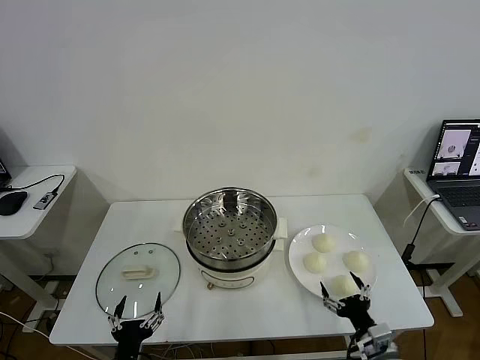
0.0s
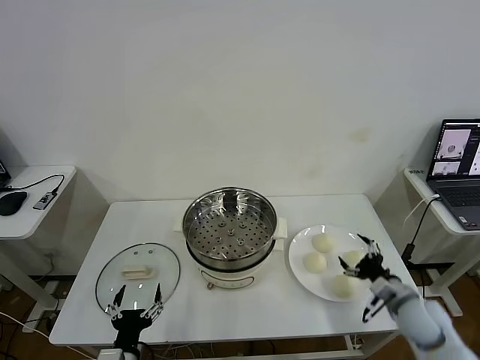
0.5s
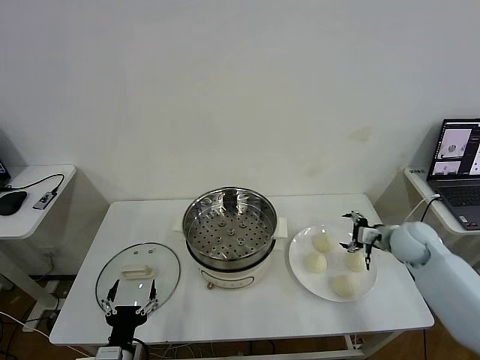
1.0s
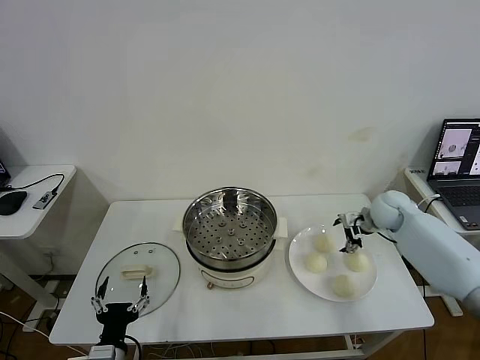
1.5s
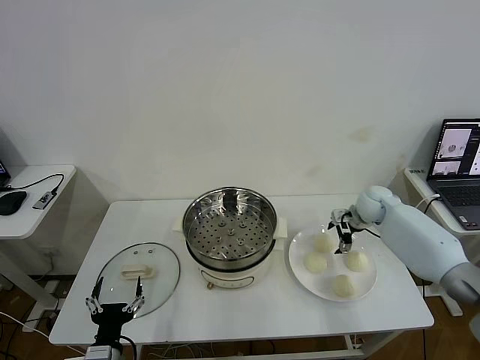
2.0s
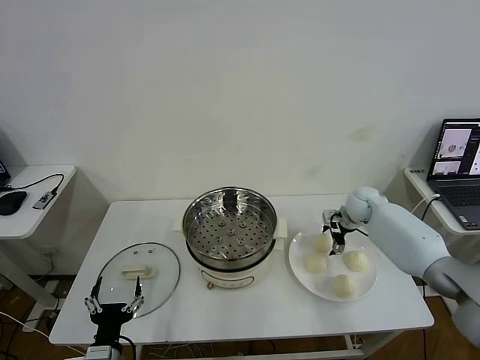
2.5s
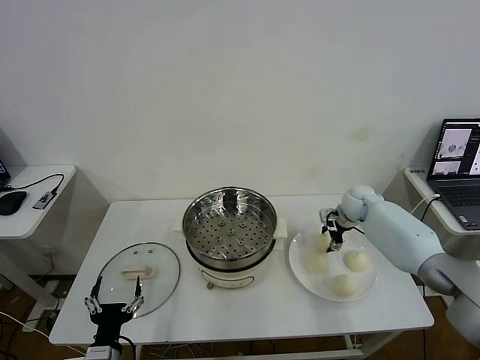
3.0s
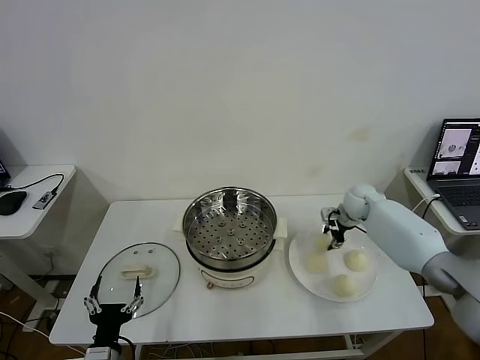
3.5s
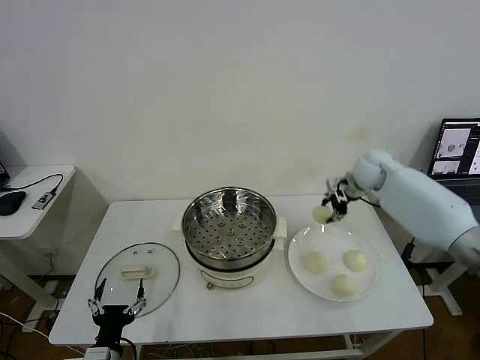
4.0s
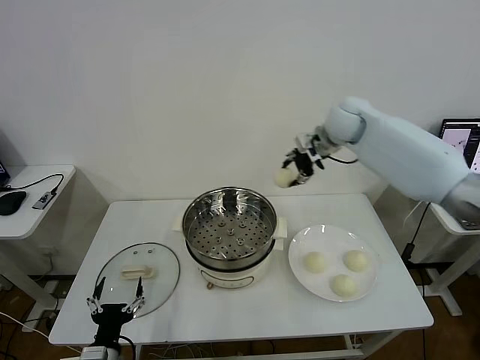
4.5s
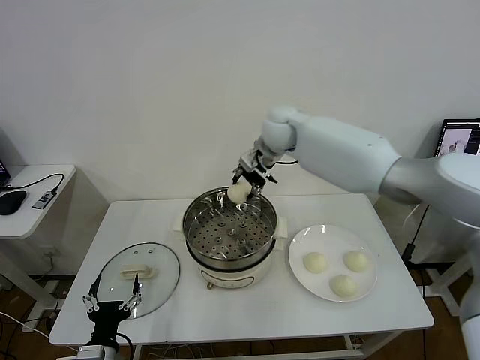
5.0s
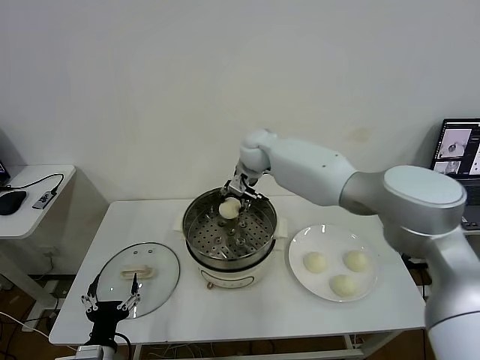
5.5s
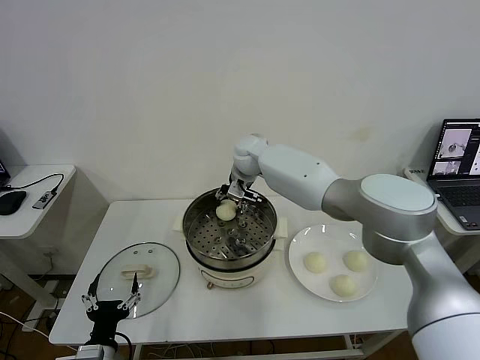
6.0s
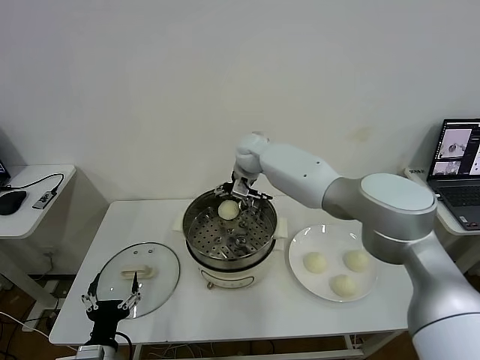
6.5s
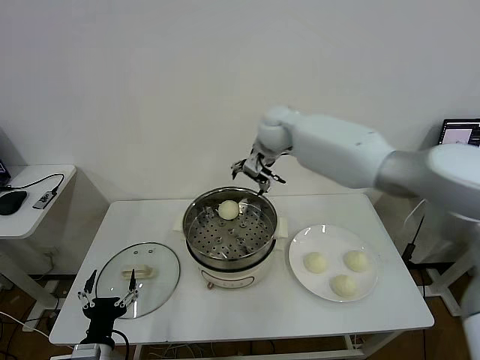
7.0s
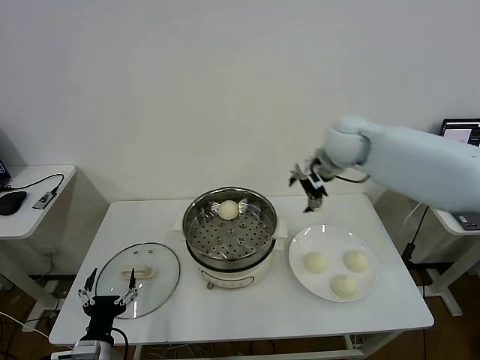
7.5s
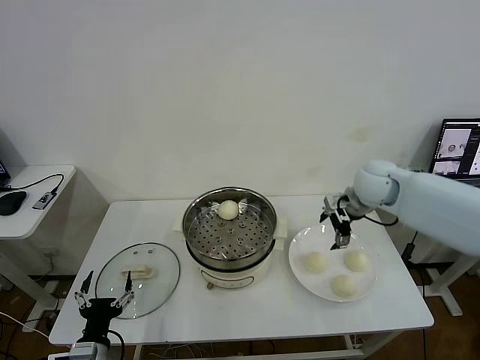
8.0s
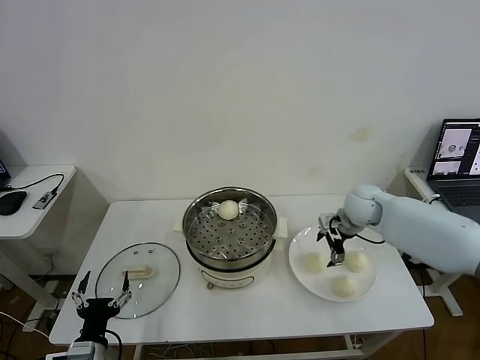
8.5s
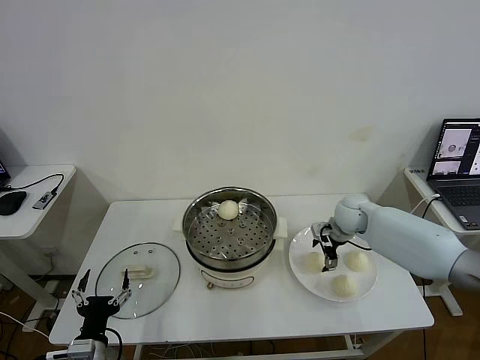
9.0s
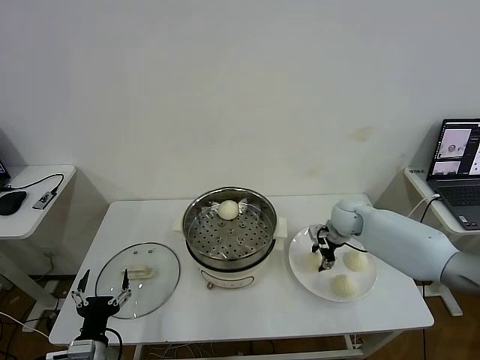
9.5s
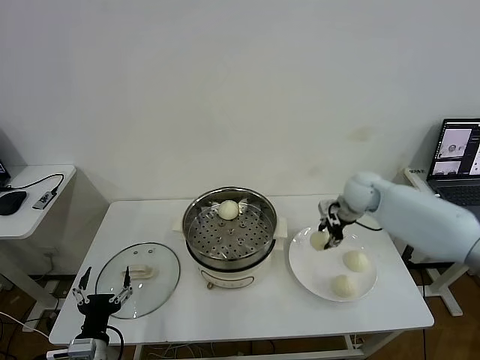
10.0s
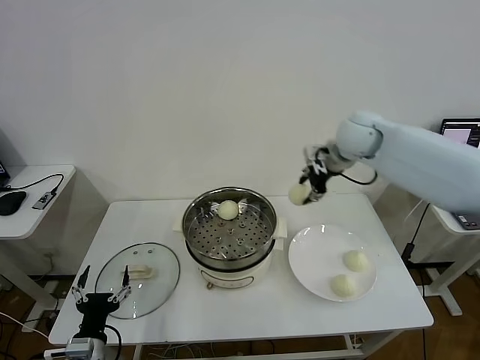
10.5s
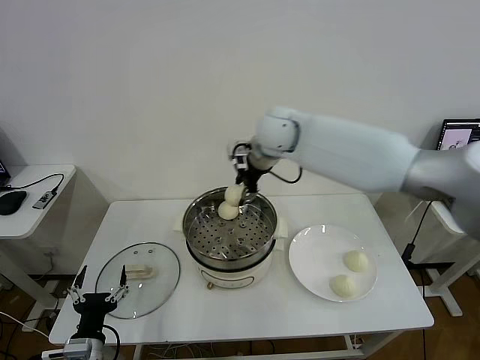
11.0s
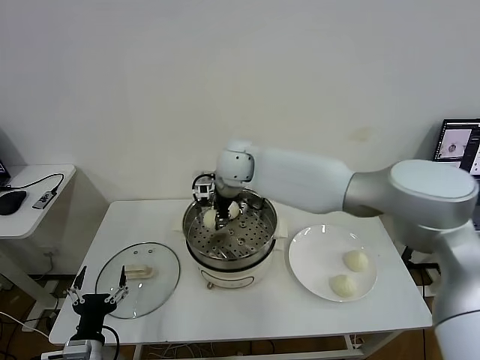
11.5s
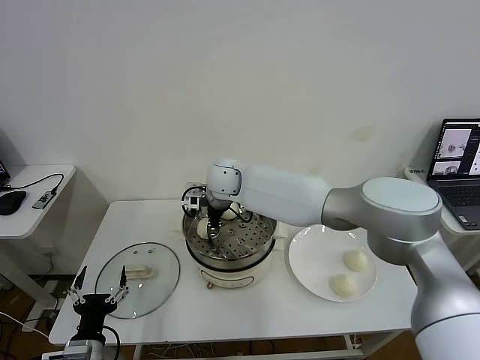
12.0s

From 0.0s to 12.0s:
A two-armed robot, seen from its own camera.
Task of the whole recording: take steamed baozi put them in steamer then cover it.
Step, from 0.0s to 3.0s: Grasp the baozi in the plate with right gripper.
Step, from 3.5s to 6.0s: Place the baozi on the steamer with right gripper.
Step, from 6.5s to 9.5s: Grasp the baozi in the plate with right gripper.
From 2.0s to 4.0s: The right gripper travels upward by roughly 15 cm, and closes.
From 4.0s to 6.0s: The right gripper moves to the left, about 30 cm.
From 6.0s to 8.0s: The right gripper is displaced to the right and backward by about 30 cm, and opens.
From 8.0s to 10.0s: The right gripper reaches some 10 cm downward, then returns, and closes.
From 10.0s to 12.0s: The right gripper goes approximately 35 cm to the left.

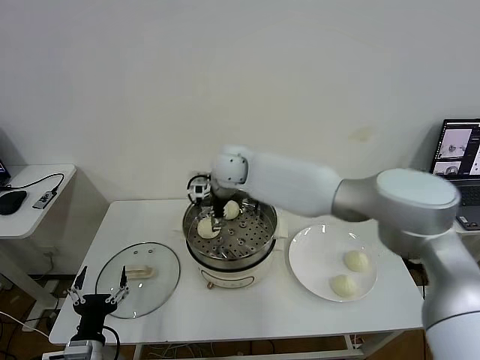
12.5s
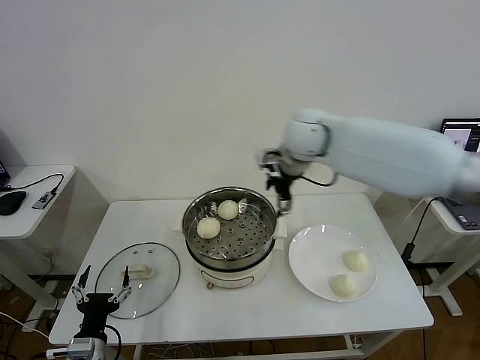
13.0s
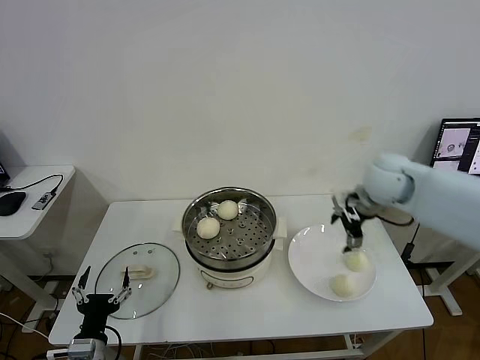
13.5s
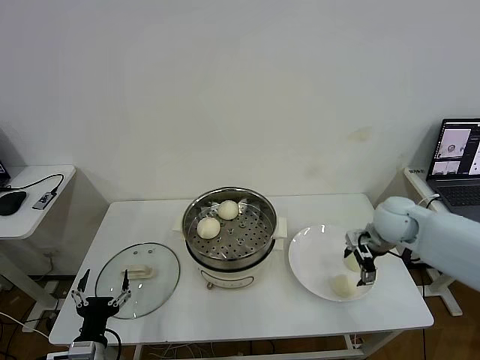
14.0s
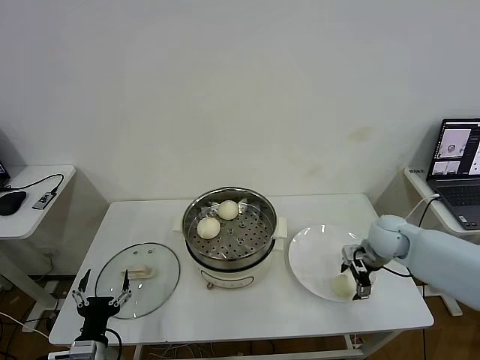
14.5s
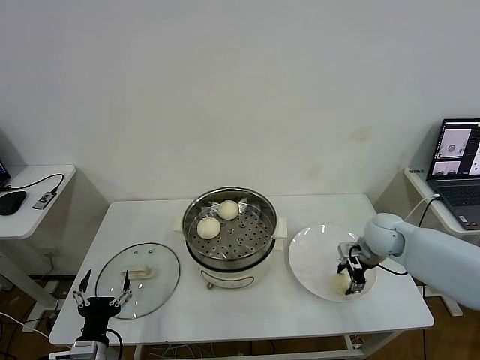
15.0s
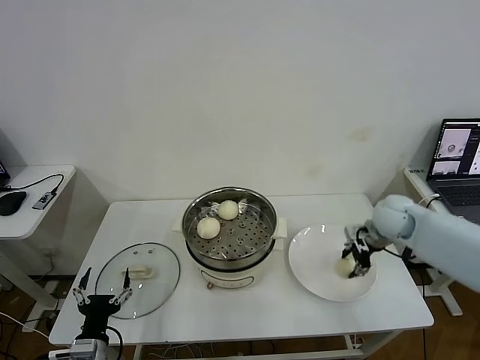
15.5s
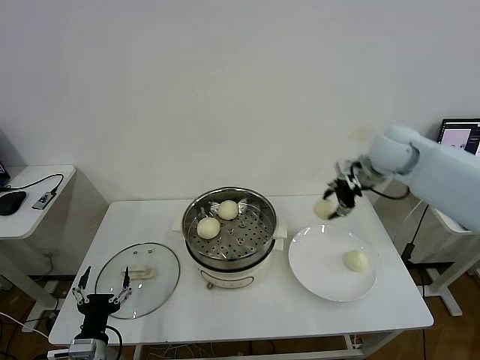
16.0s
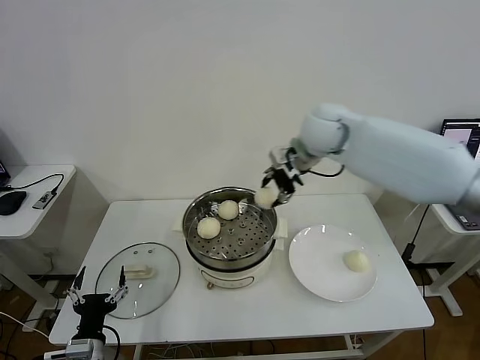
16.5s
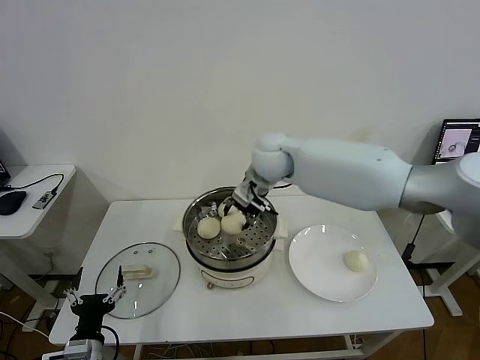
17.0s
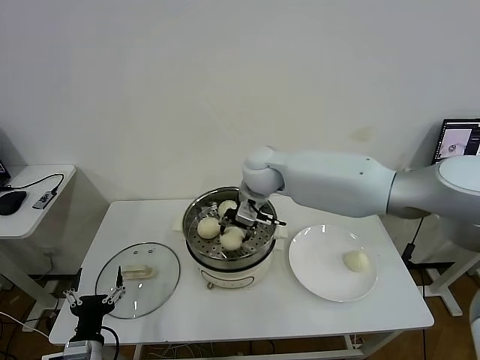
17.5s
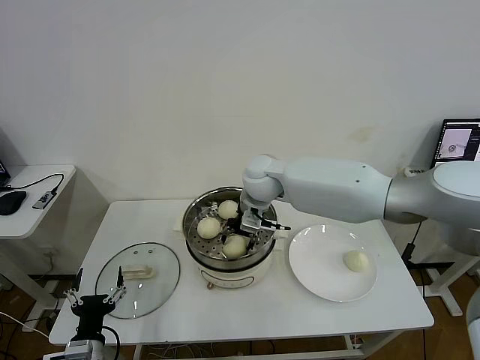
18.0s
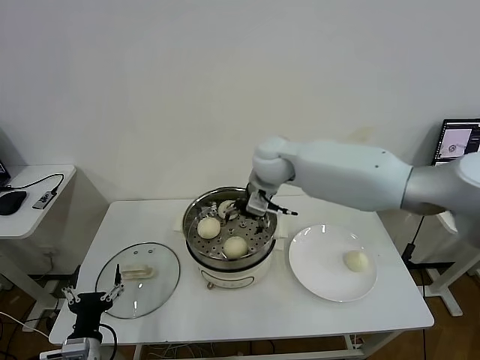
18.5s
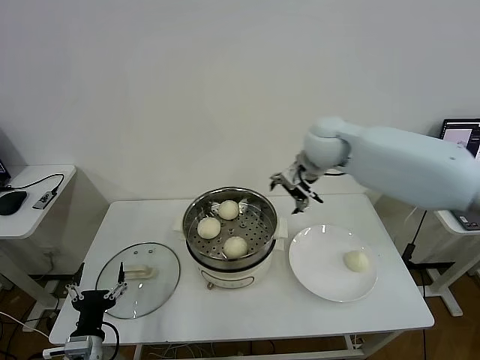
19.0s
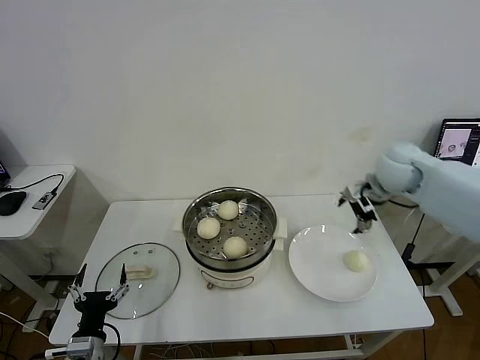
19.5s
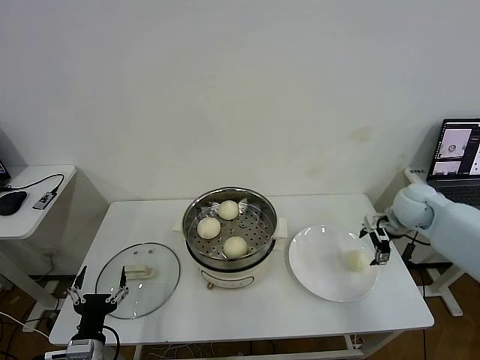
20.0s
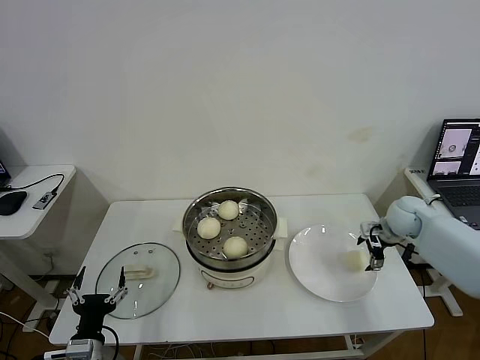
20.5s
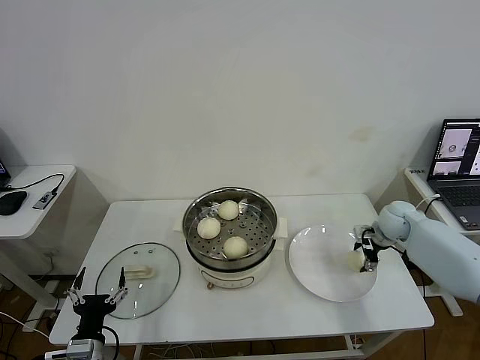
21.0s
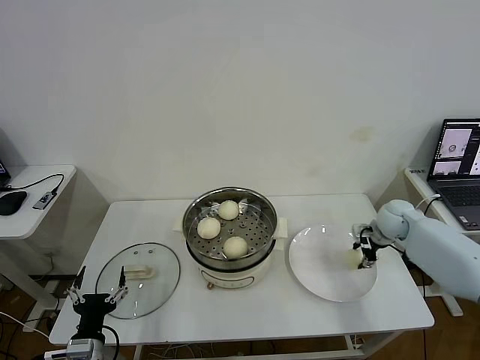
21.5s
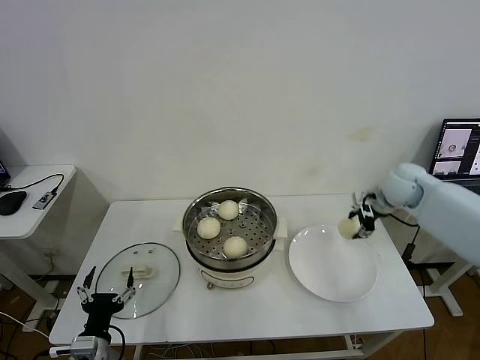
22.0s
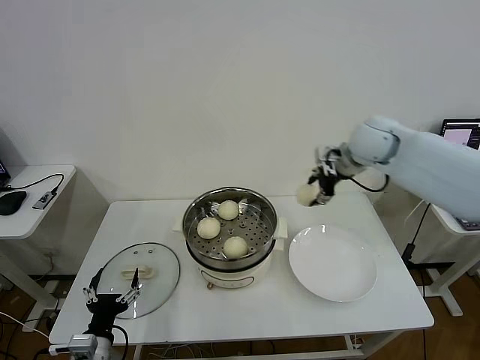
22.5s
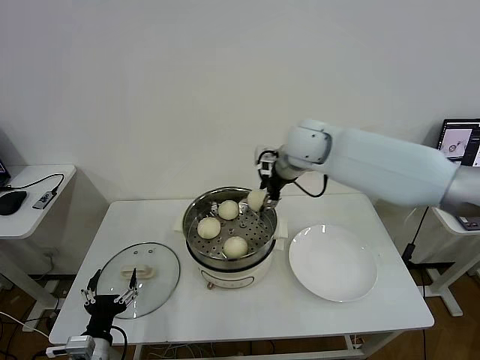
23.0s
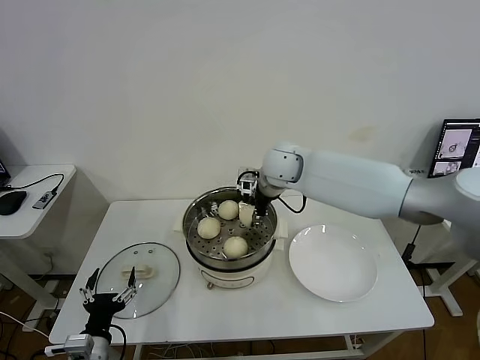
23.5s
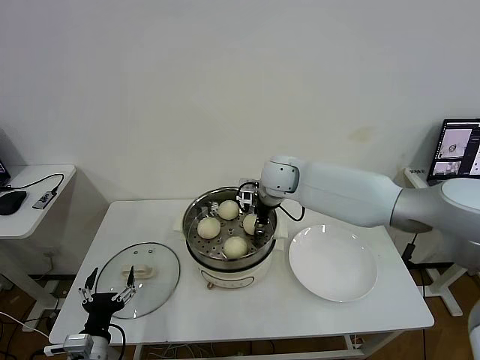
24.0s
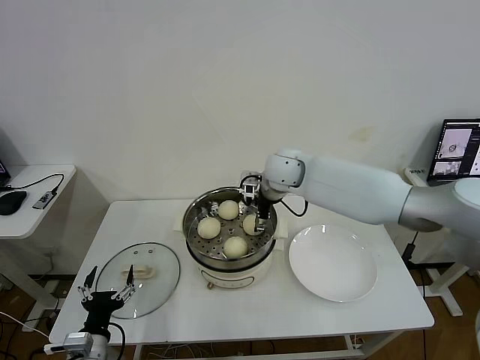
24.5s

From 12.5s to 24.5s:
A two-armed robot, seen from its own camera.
Task of the whole recording: take steamed baozi put them in steamer then cover it.
Step, from 13.0s to 15.0s: Grasp the baozi in the plate with right gripper.
Step, from 15.5s to 18.0s: Place the baozi on the steamer with right gripper.
Step, from 19.0s to 21.5s: Grasp the baozi in the plate with right gripper.
From 12.5s to 14.5s: The right gripper heads to the right and downward, covering roughly 40 cm.
From 14.5s to 16.5s: The right gripper travels upward and to the left by approximately 30 cm, and closes up.
From 16.5s to 18.5s: The right gripper moves to the left and downward, roughly 10 cm, and opens its fingers.
From 18.5s to 20.5s: The right gripper heads to the right and downward, covering some 35 cm.
From 20.5s to 22.5s: The right gripper shifts roughly 25 cm upward and to the left, and closes up.
From 22.5s to 24.5s: The right gripper shifts roughly 20 cm to the left and downward, and opens.

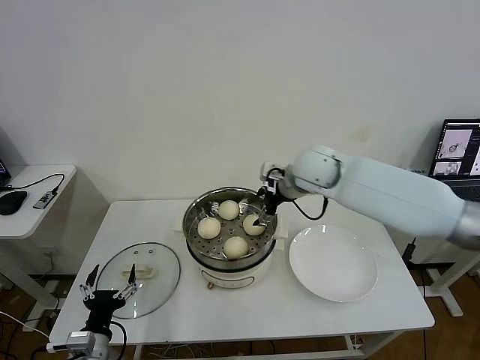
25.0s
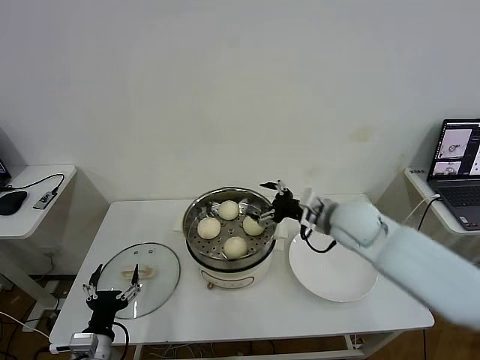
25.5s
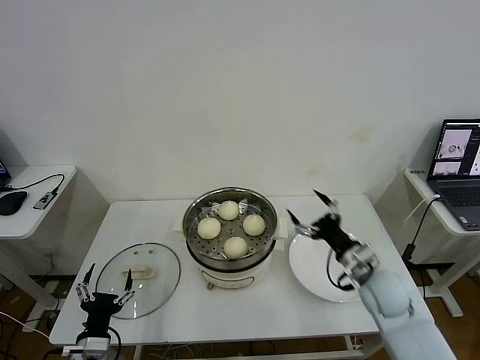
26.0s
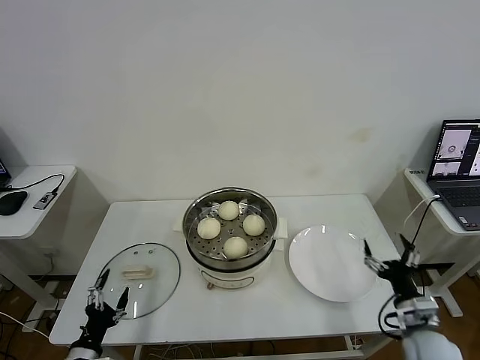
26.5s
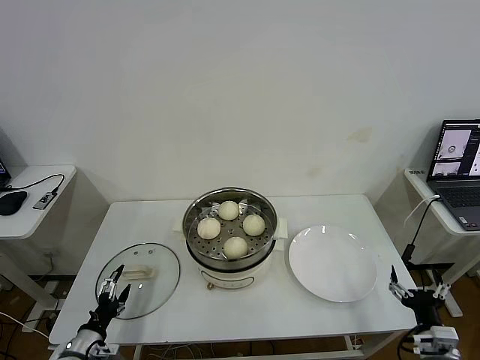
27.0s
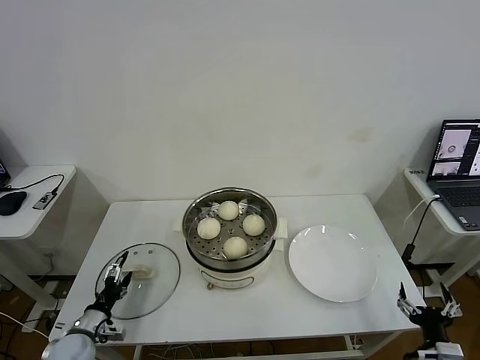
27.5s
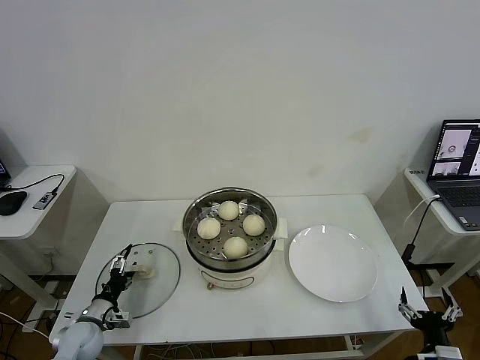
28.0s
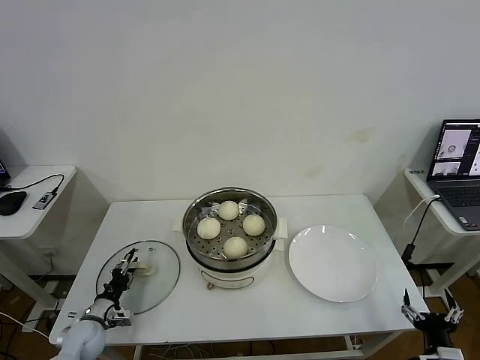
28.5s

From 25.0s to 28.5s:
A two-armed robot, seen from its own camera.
Task of the whole recording: take steamed baozi put them in steamer then cover it.
From 25.0s to 27.0s: The right gripper moves backward, downward and to the right, approximately 50 cm, while the left gripper travels to the left and downward by some 10 cm.
From 27.0s to 28.5s: The left gripper heads forward, covering roughly 10 cm, and closes its fingers. Meanwhile the right gripper changes place by approximately 5 cm.
